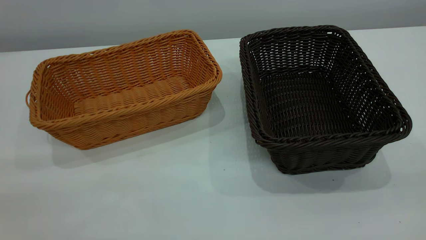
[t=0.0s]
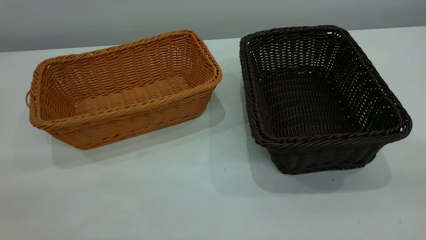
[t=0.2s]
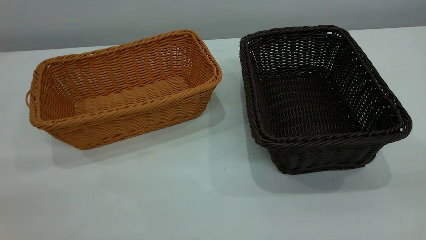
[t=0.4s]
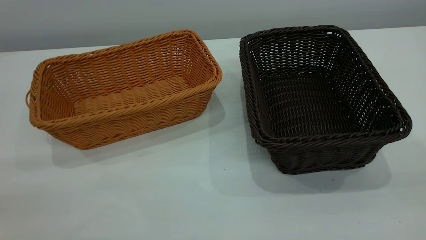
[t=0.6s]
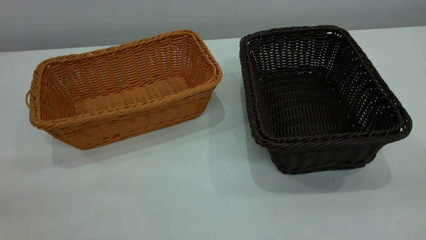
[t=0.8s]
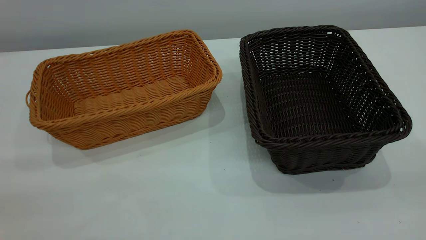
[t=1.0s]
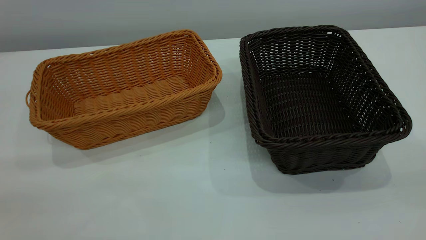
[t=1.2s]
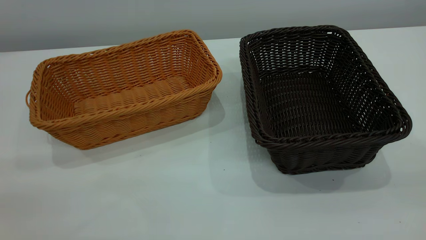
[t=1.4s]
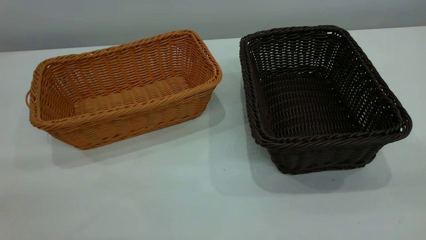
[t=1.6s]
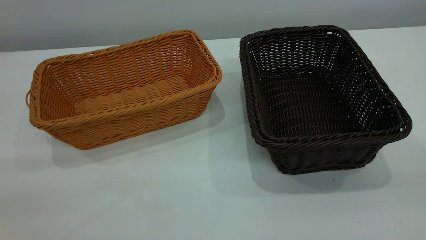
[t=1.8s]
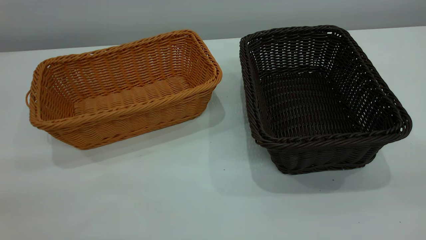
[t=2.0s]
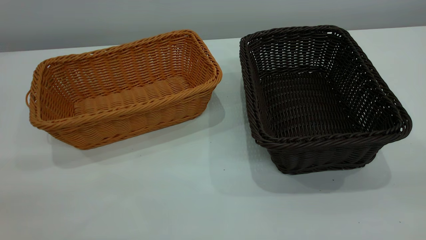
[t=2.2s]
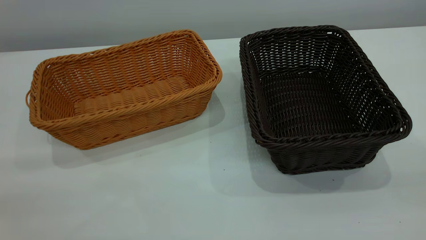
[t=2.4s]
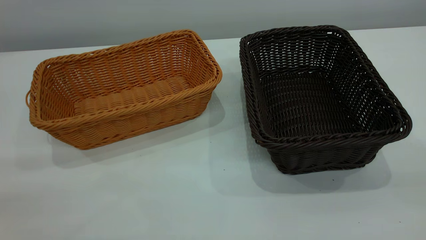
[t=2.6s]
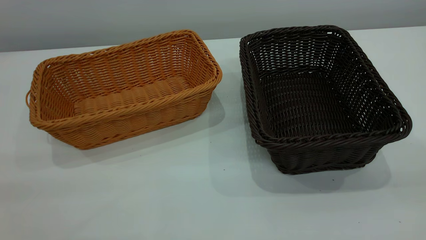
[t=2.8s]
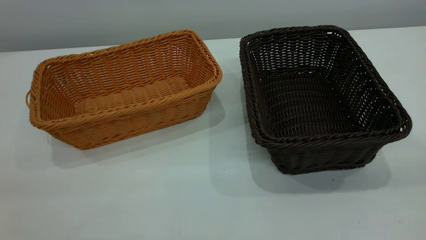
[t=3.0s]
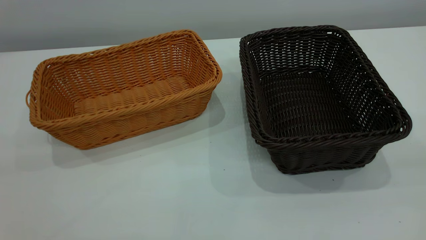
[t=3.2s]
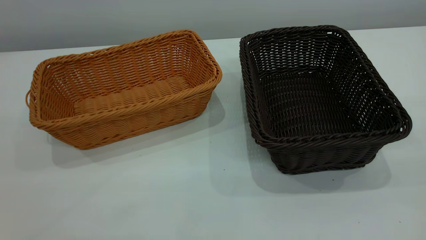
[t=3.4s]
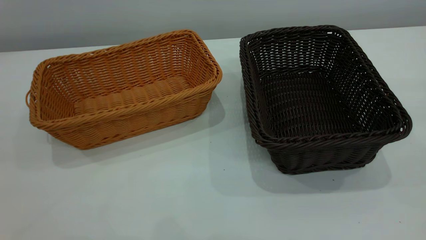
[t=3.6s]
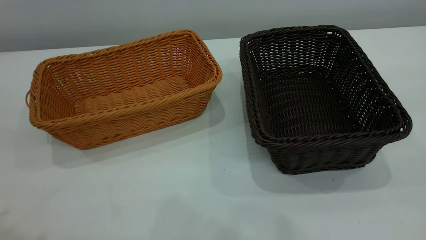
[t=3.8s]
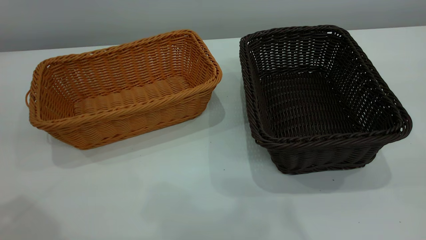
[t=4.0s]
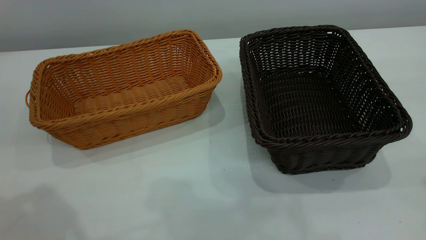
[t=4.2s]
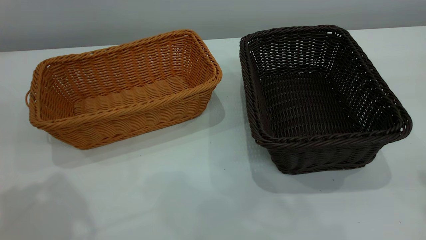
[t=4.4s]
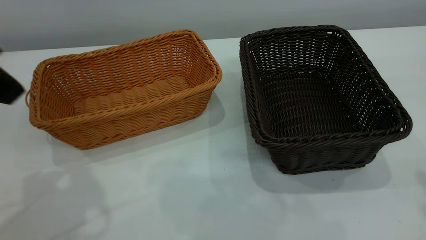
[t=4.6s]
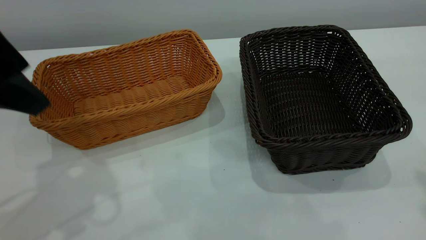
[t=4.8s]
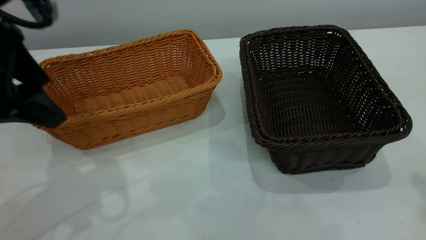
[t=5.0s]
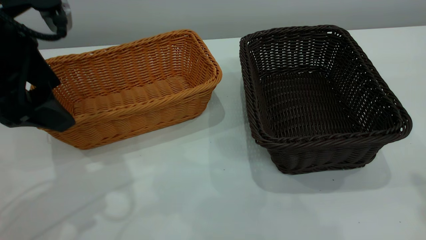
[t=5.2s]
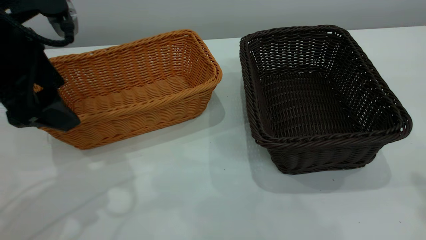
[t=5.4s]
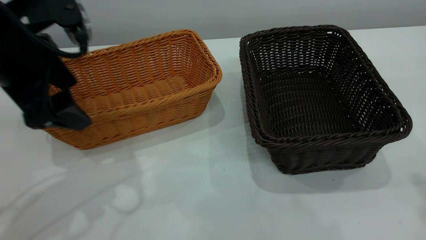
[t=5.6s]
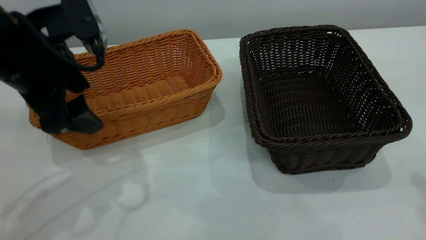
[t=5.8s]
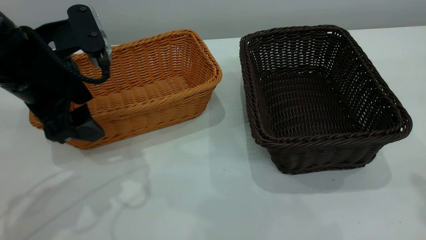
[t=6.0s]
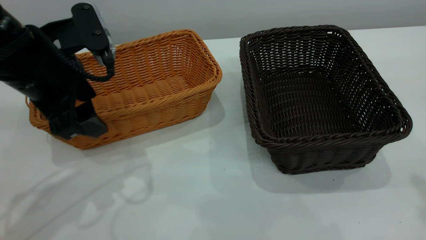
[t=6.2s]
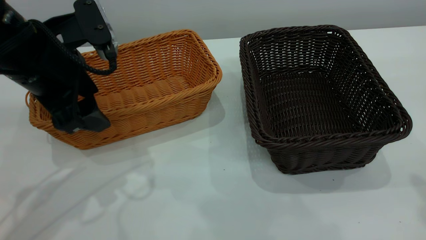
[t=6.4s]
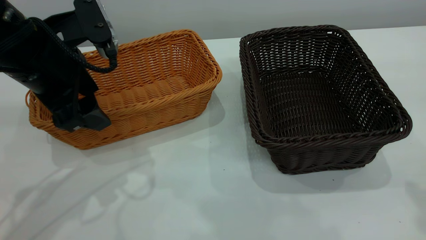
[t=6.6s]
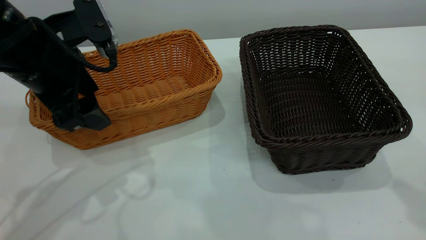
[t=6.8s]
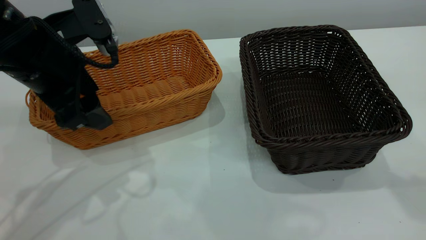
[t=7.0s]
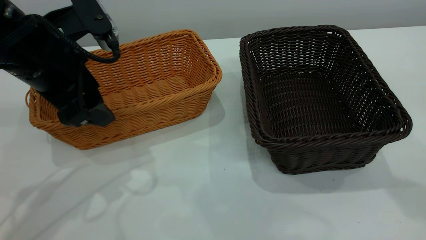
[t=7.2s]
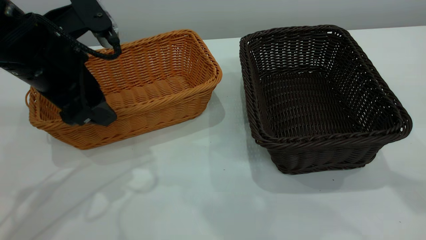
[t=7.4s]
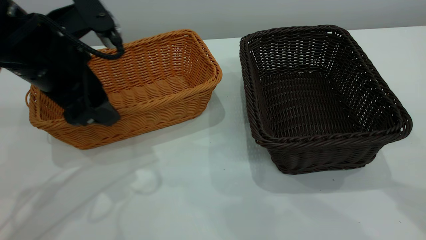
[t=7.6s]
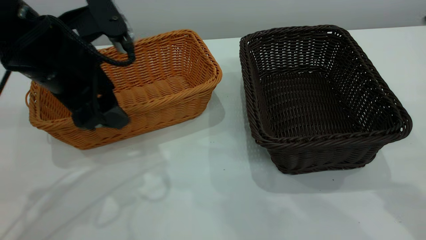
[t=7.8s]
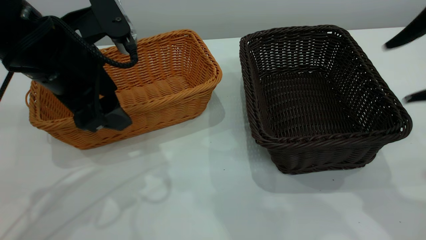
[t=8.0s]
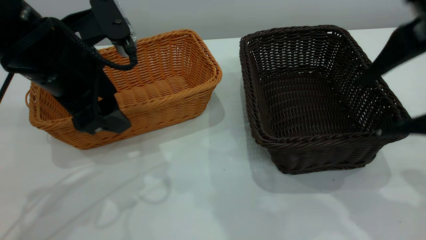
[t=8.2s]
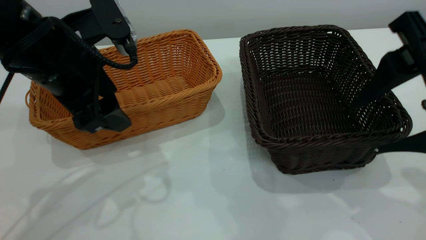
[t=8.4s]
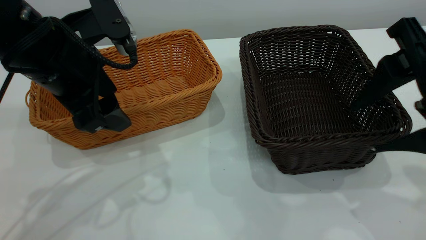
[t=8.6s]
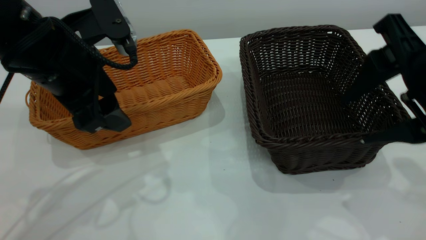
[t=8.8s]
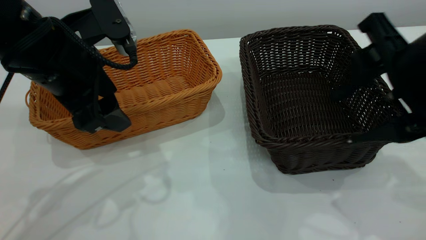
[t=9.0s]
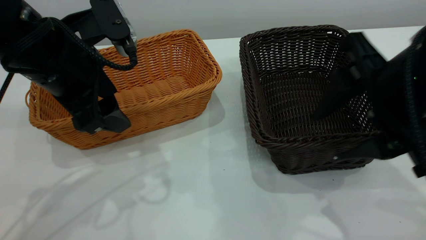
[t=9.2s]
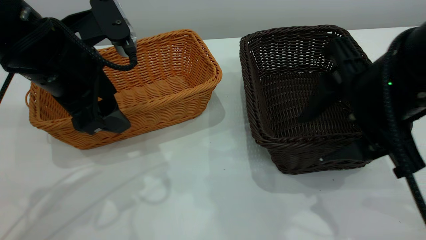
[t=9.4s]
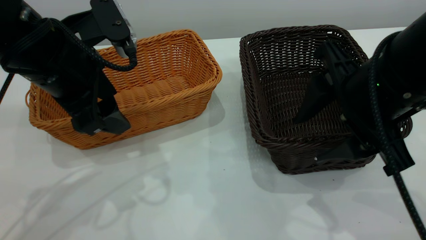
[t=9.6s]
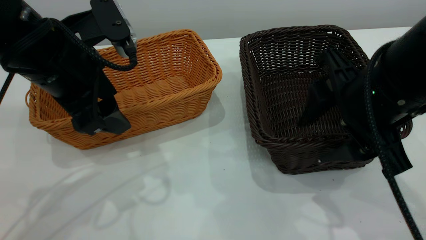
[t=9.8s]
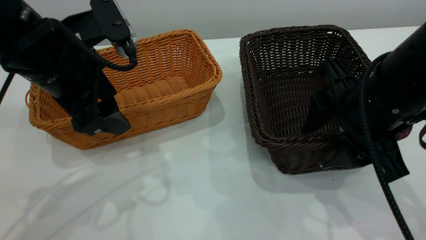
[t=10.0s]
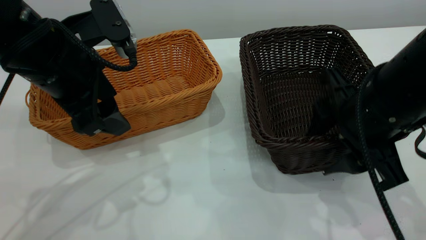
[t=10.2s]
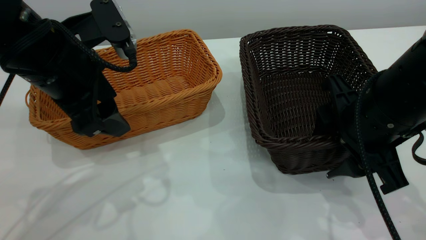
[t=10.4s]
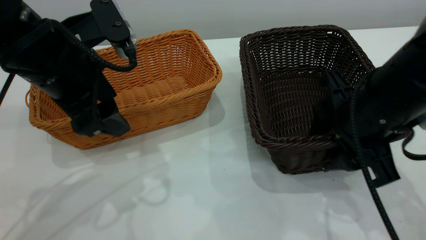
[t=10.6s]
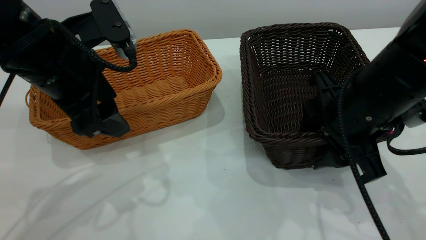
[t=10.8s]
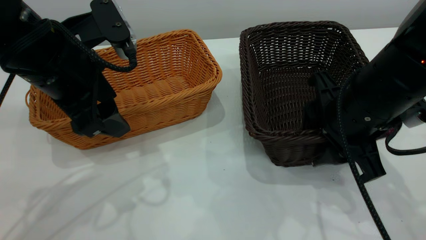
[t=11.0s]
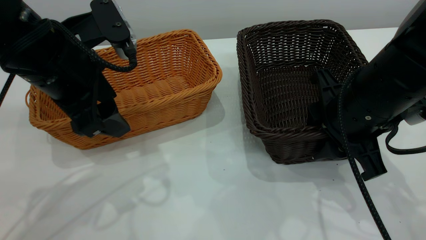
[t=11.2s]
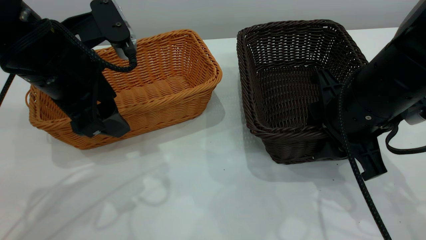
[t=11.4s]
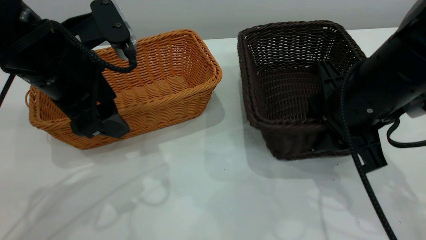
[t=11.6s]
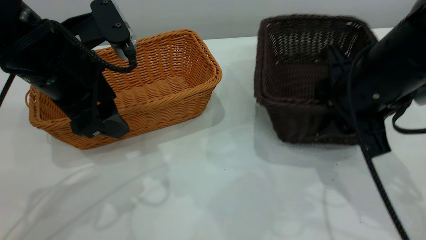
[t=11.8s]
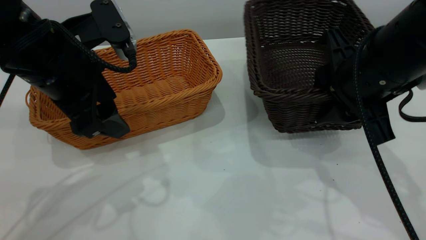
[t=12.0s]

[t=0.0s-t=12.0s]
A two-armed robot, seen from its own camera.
Task of the whole recording: the left gripper grasp the brown basket and place it in the center of the table, the right gripper grasp the black basket and place it inside the brown one.
t=0.0s to t=1.6s: Both grippers stay put.
t=4.4s to t=6.0s: The left gripper shifts roughly 15 cm downward, forward and to the right.
t=7.6s to t=9.0s: The right gripper shifts about 15 cm downward, to the left and forward.
t=9.0s to t=10.4s: The right gripper moves downward, roughly 5 cm.

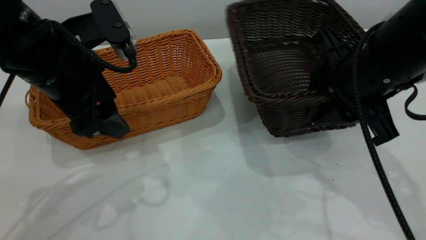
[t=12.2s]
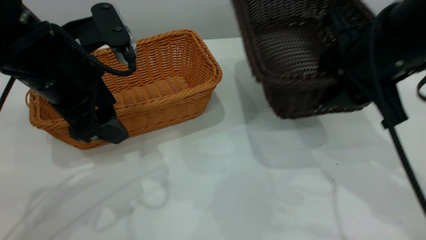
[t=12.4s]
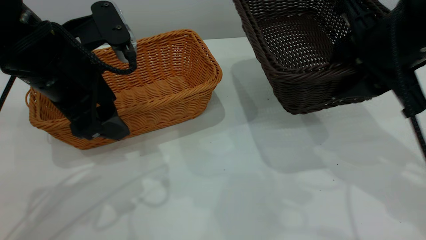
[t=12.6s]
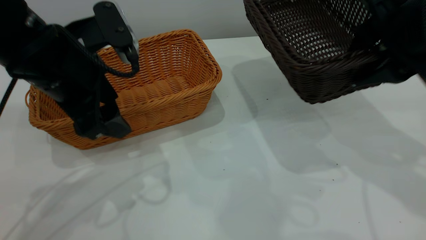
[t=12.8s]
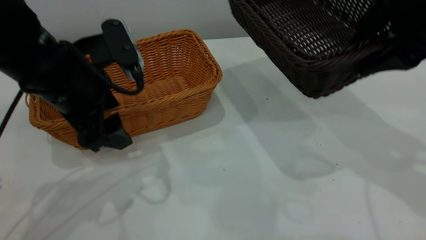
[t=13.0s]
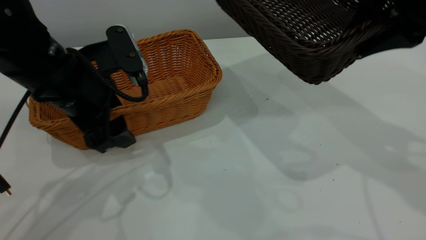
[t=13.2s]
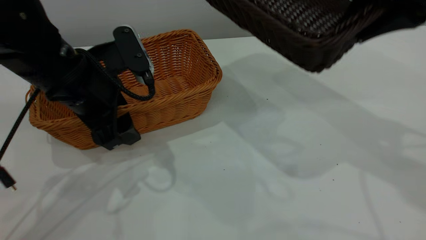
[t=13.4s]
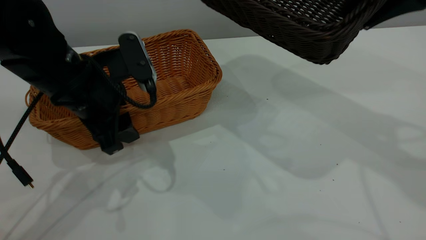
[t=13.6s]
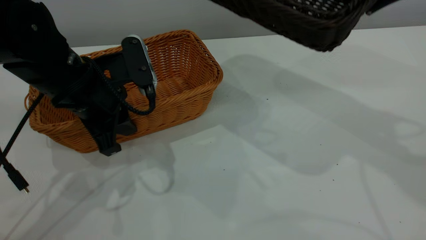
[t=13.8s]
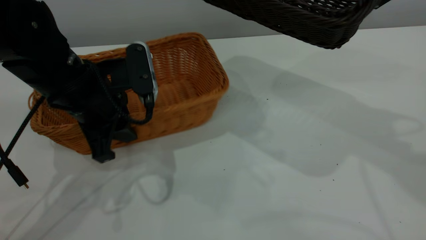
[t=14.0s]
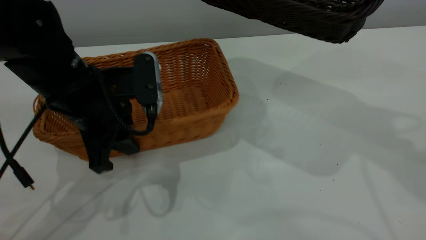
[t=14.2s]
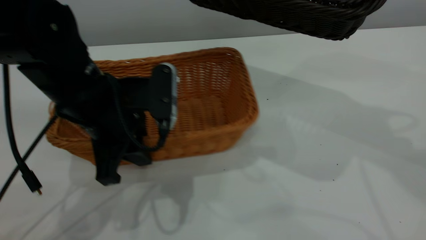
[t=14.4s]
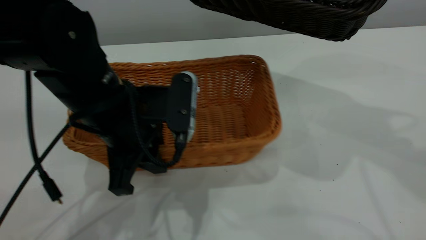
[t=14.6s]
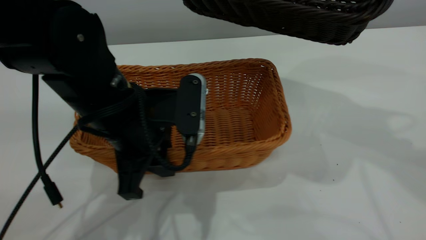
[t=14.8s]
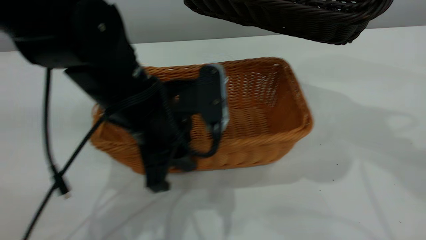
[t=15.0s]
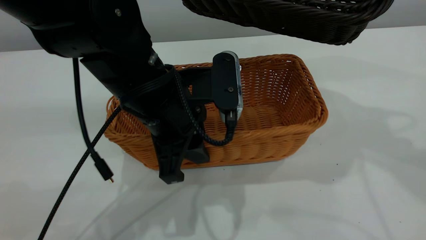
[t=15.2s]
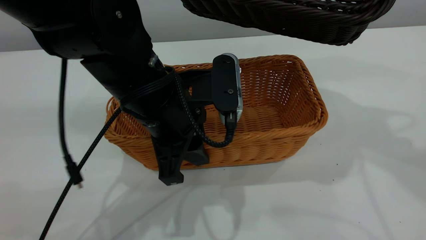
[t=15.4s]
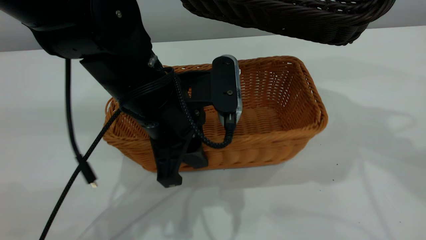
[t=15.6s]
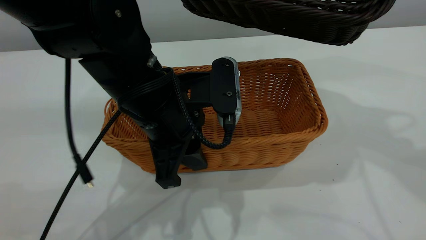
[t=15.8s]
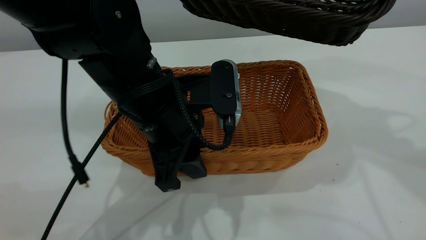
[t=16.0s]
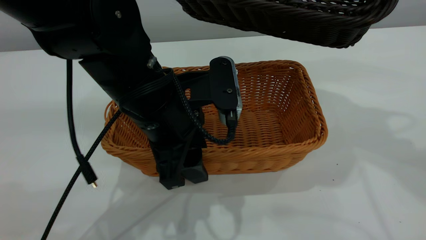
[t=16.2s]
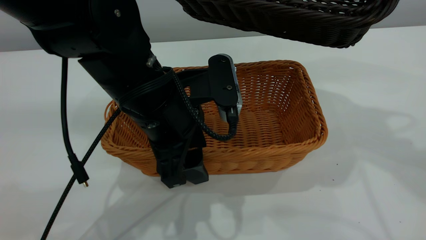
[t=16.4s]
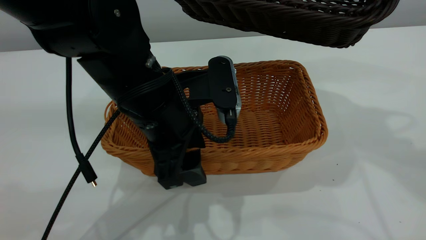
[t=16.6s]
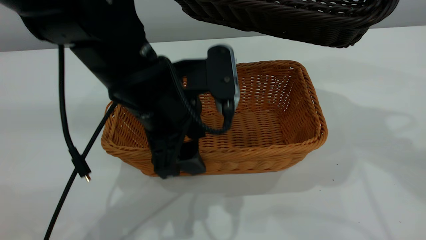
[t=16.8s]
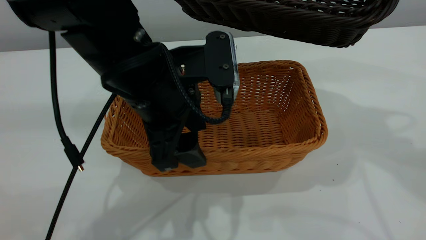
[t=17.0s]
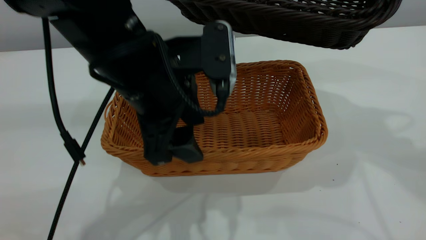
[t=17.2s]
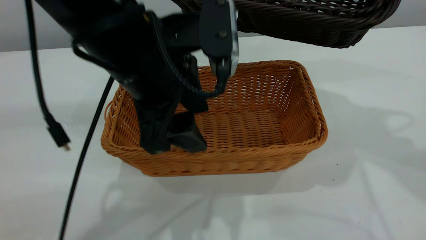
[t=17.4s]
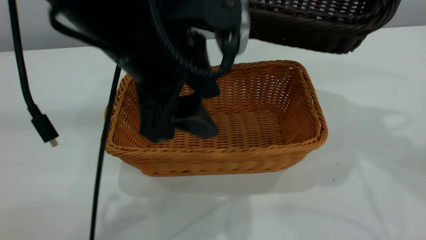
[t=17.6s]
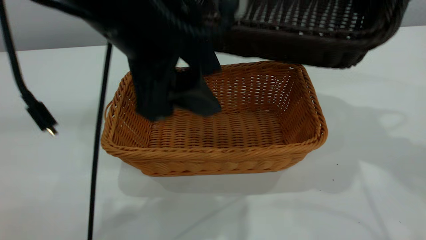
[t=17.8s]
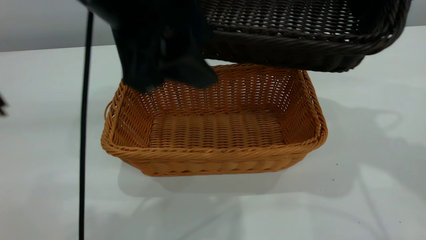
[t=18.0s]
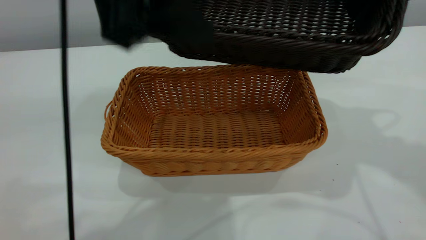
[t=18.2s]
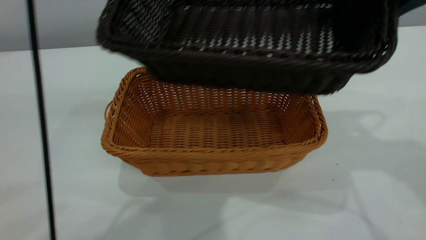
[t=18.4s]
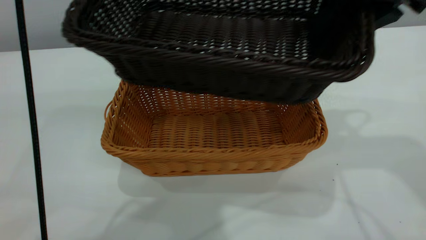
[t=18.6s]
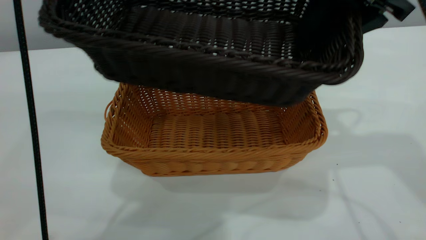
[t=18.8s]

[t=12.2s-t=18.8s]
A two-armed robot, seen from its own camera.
Task of the whole recording: the left gripper grasp the brown basket and place it in the center of the table, the right gripper grasp the black basket and place it inside the brown one.
Step, t=12.6s to t=17.4s: Place the light-colored basket in the center.
t=12.2s to t=13.8s: The left gripper goes roughly 5 cm downward, and closes up. The right gripper is displaced upward by about 15 cm.
t=13.8s to t=15.4s: The left gripper goes approximately 10 cm to the right.
t=15.4s to t=17.2s: The left gripper opens.
t=17.2s to t=18.8s: The left gripper heads upward, covering roughly 20 cm, while the right gripper heads downward, covering roughly 5 cm.
